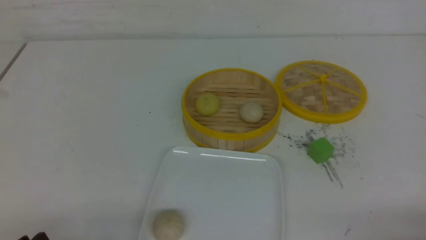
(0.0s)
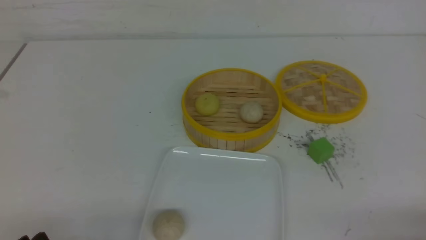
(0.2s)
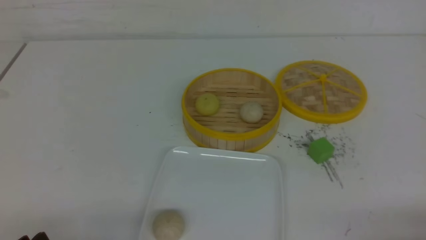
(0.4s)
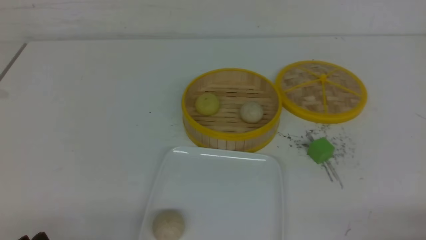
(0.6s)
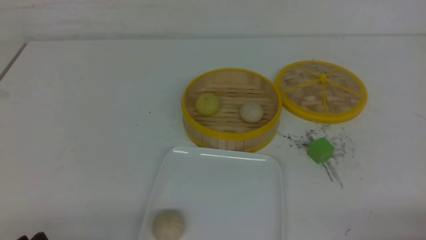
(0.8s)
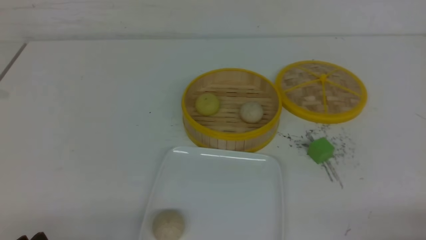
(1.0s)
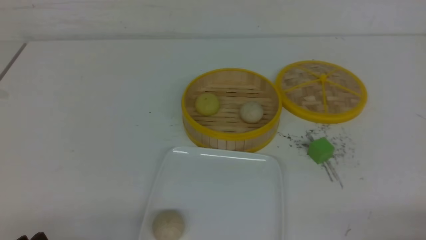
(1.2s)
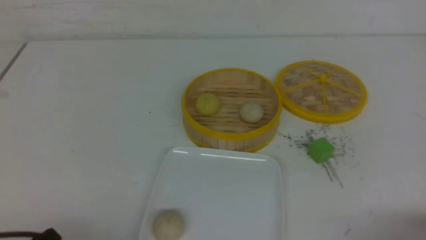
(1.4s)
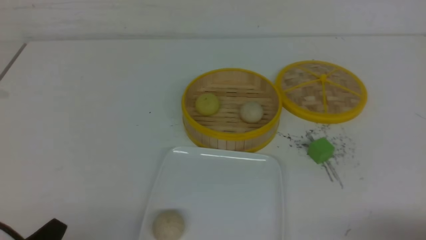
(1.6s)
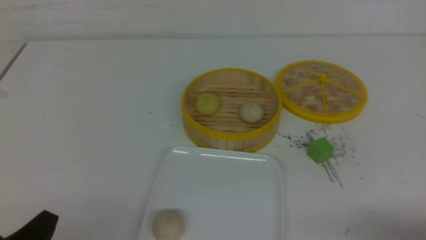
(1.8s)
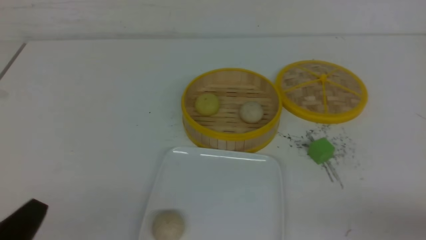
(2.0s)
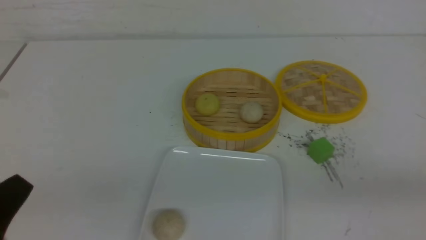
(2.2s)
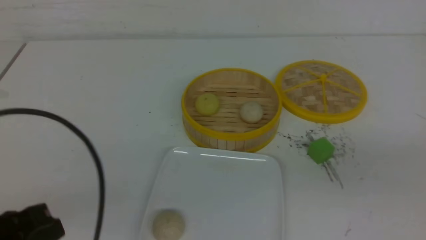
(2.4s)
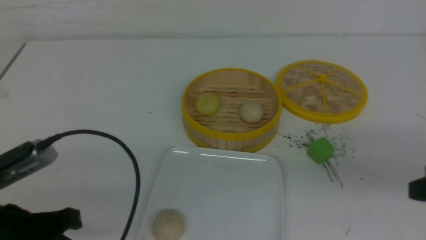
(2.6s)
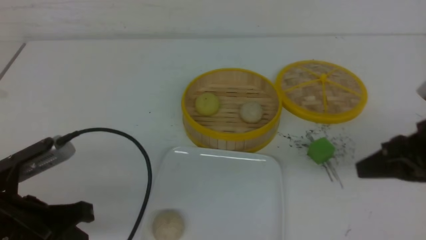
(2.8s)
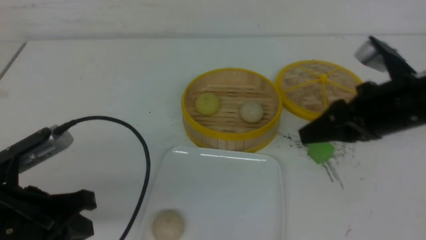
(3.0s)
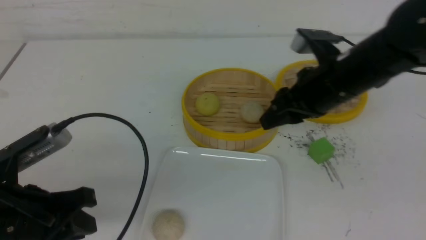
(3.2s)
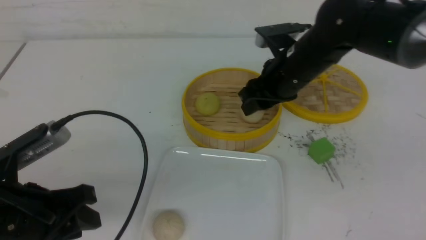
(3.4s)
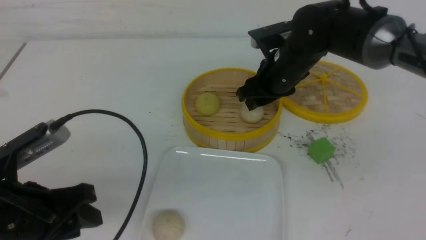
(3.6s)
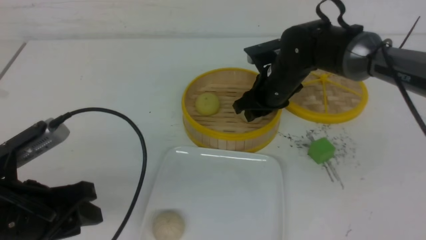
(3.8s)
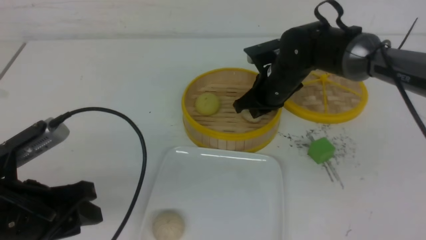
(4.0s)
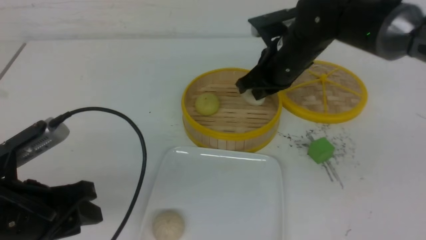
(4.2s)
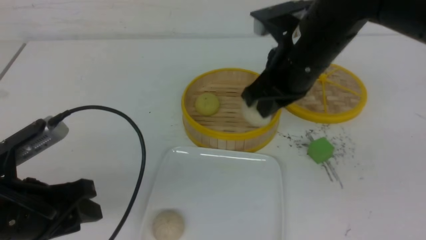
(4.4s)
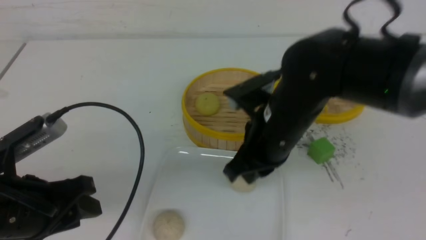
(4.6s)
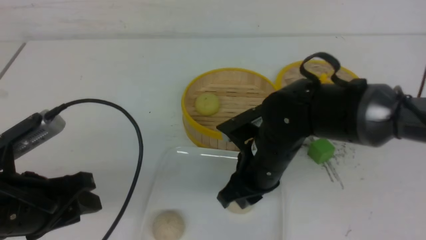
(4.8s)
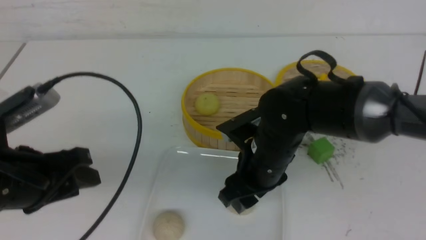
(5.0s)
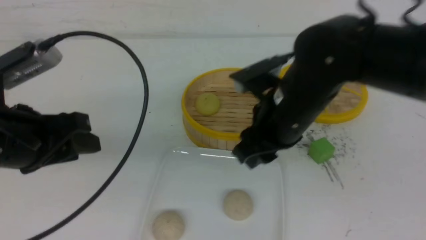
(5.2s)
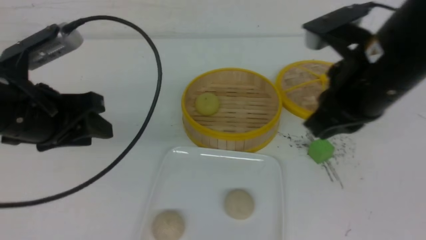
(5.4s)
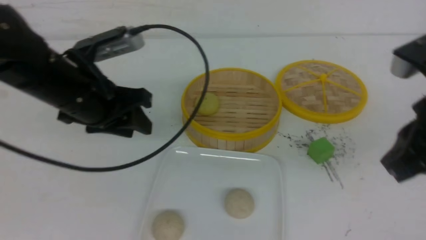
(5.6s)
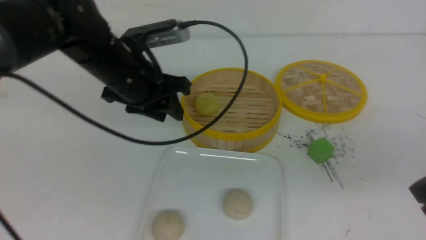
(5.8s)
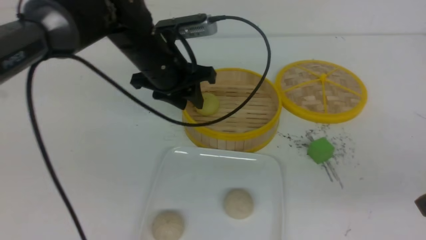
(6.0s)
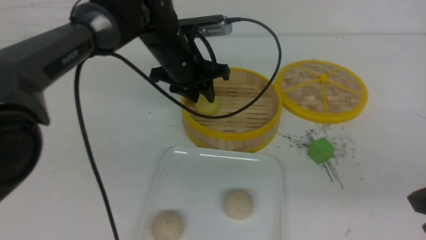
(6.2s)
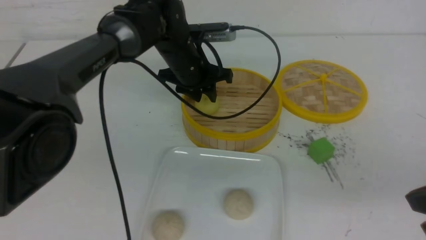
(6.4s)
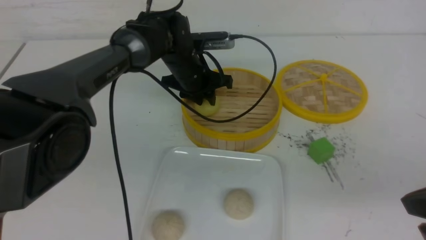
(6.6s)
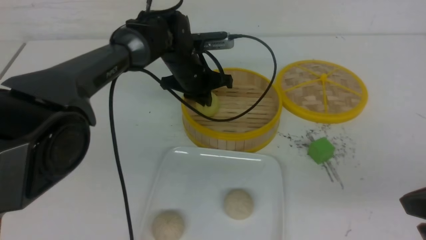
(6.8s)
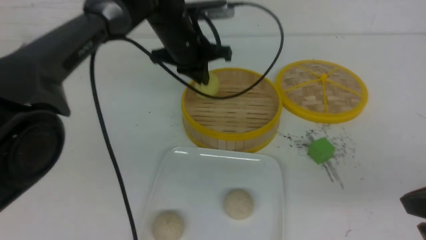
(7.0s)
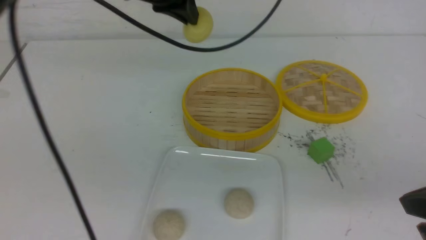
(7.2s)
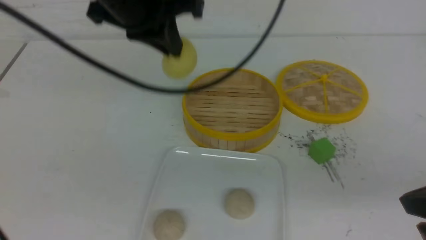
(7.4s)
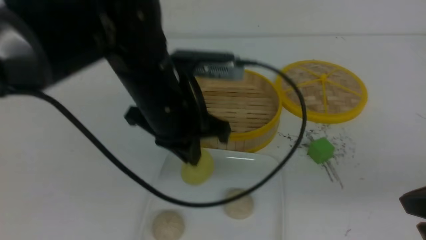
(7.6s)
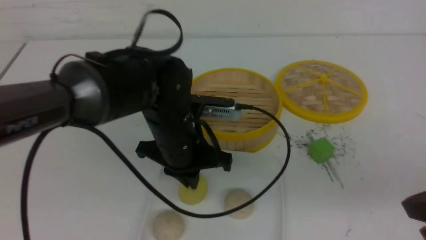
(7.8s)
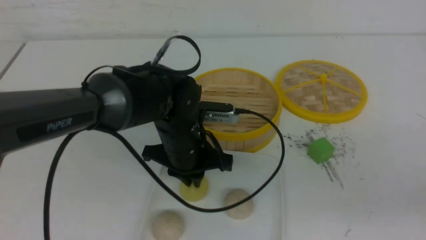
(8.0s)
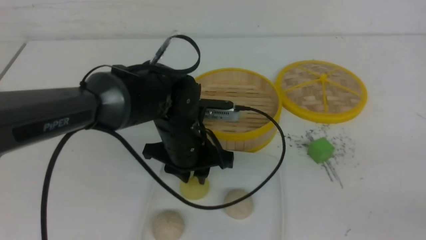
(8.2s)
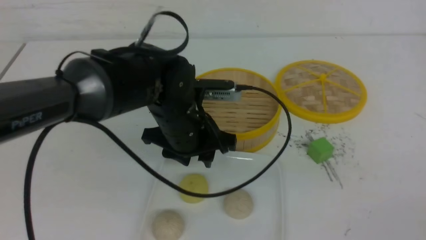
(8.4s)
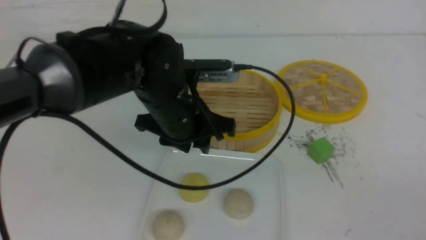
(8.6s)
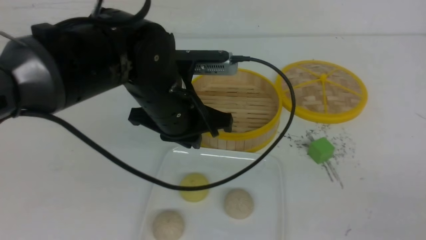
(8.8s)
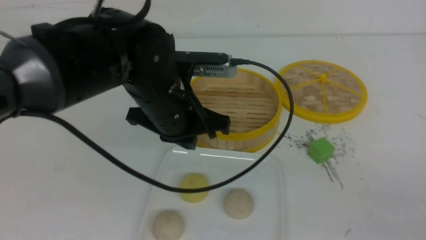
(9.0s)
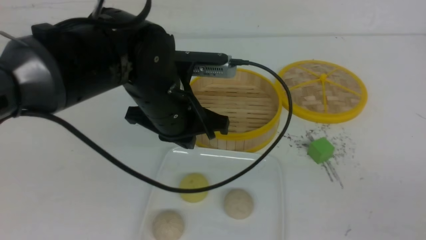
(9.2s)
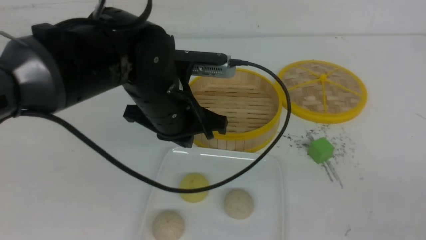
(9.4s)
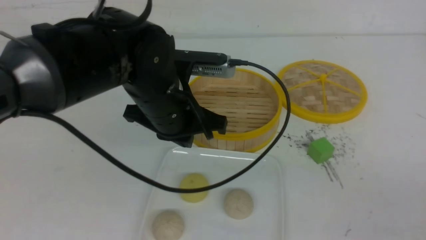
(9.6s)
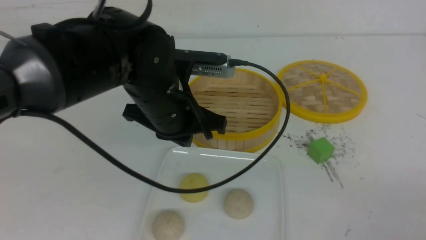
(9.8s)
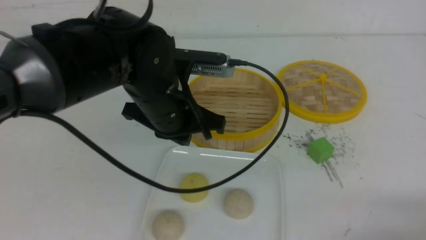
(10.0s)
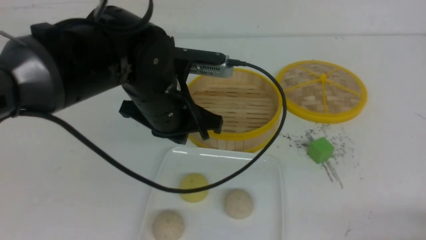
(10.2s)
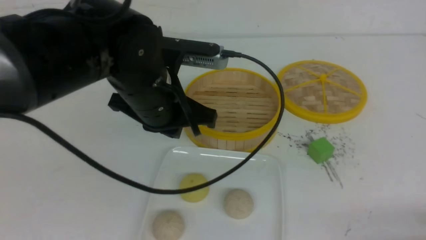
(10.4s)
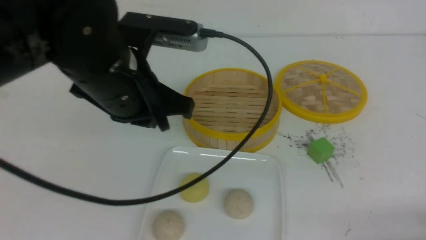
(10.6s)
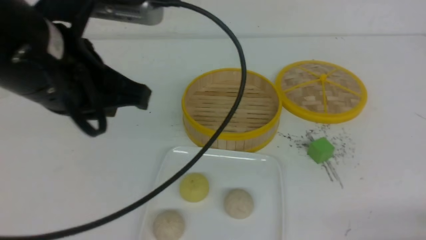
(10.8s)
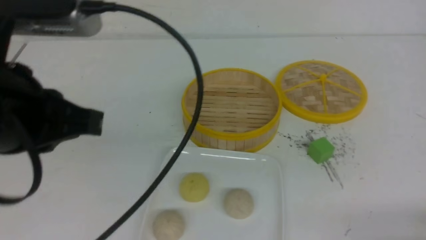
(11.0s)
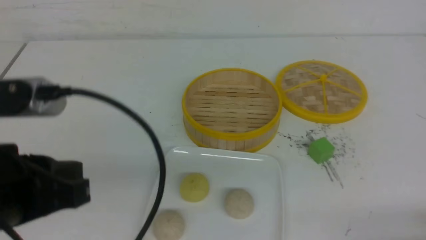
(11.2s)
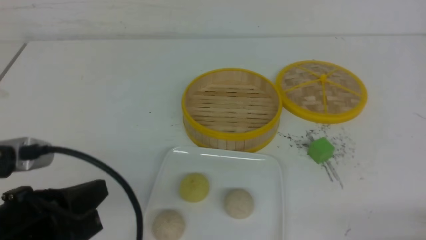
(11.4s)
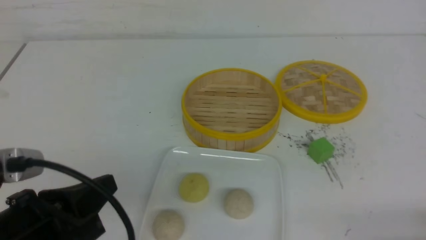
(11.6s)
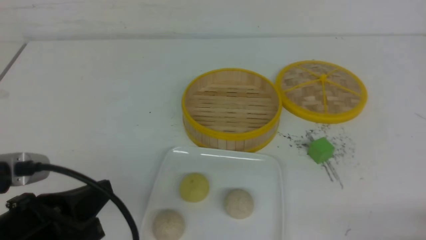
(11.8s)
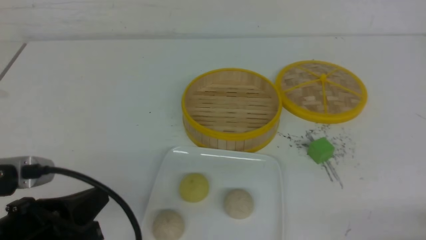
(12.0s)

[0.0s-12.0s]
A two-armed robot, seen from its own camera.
Step, 0.0s to 4.0s: use the right arm to grab the steamed stuffed bun that is closest to it.
Step, 4.2s to 5.0s: use the right arm to put the steamed stuffed bun into the plate.
Step, 5.2s to 6.8s: use the left arm to grab the steamed stuffed bun that is closest to it.
Step, 7.0s to 8.2s: use the left arm to put the steamed stuffed bun into the plate.
1.6s to 3.0s: The left gripper goes about 10 cm forward and upward, and closes up. The right gripper heads forward, upward and to the left, covering roughly 25 cm, and closes and opens again.
3.0s to 4.4s: The right gripper shifts about 15 cm to the left and forward, and closes up. The left gripper opens up.
4.4s to 6.0s: The left gripper shifts some 25 cm forward and to the right. The right gripper heads backward and to the right, covering approximately 25 cm, and opens, then closes again.
6.0s to 7.6s: The left gripper goes up and down, about 15 cm each way, reversing 2 times, and closes.
7.6s to 9.0s: The left gripper goes downward and returns, some 10 cm each way, and opens, then closes once more, while the right gripper heads backward, covering about 10 cm.
9.0s to 10.4s: The right gripper heads downward, covering about 10 cm.
10.4s to 12.0s: The left gripper travels backward, to the left and downward by approximately 20 cm.

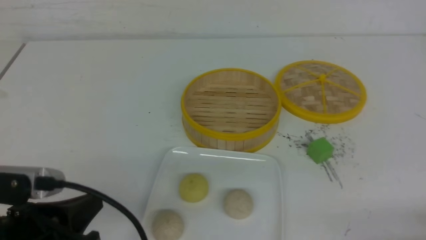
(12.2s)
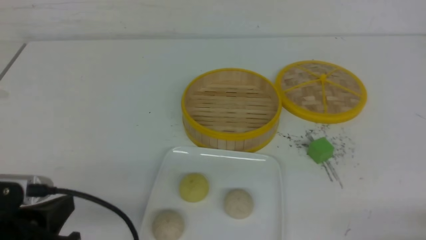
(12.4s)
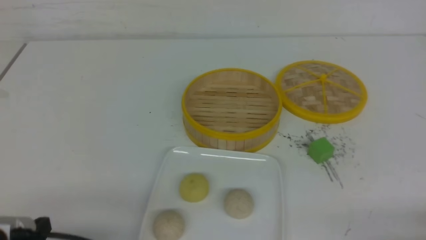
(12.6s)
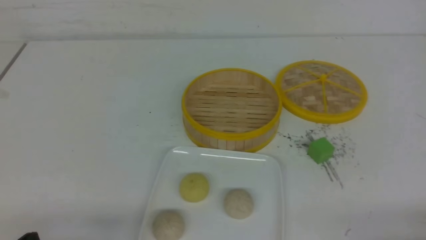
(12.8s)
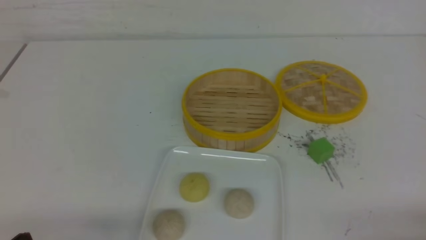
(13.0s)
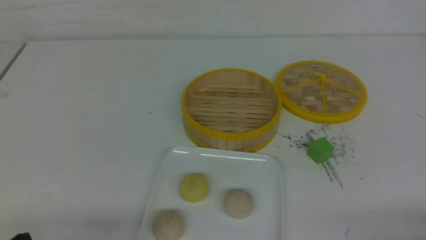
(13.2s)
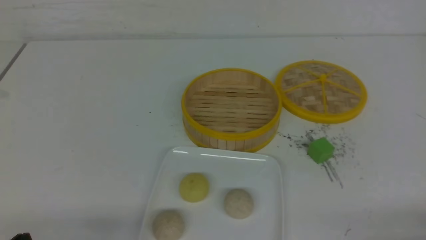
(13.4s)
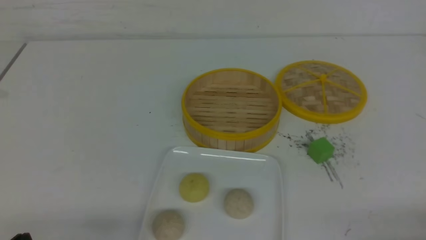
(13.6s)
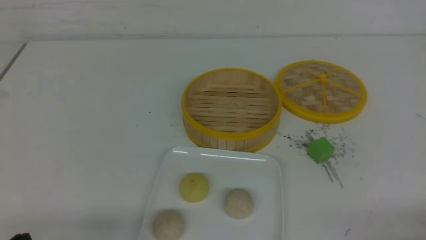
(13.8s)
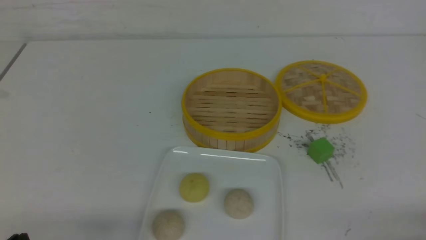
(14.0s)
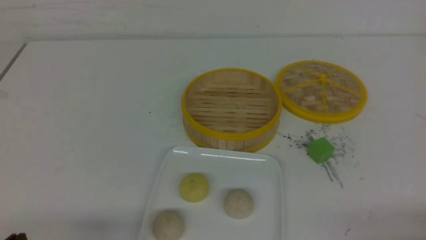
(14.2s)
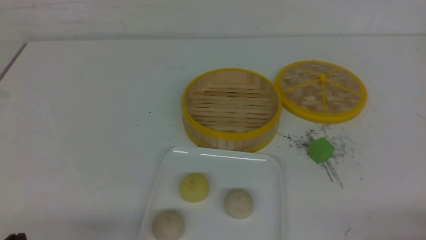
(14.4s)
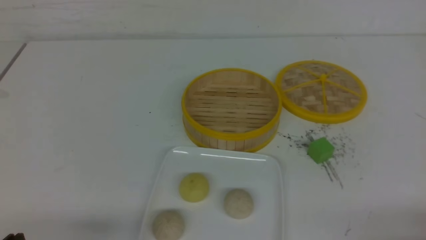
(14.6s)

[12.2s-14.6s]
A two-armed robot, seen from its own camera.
12.2s to 13.4s: The left gripper heads downward, covering roughly 5 cm.
